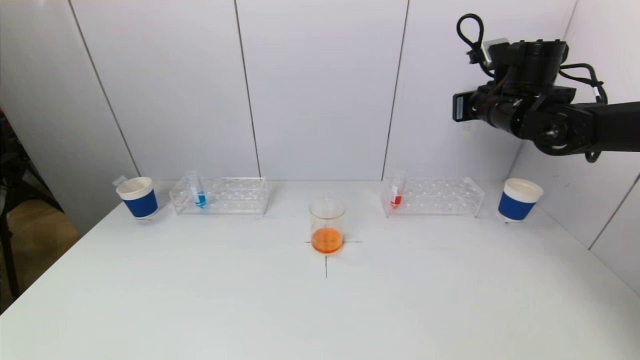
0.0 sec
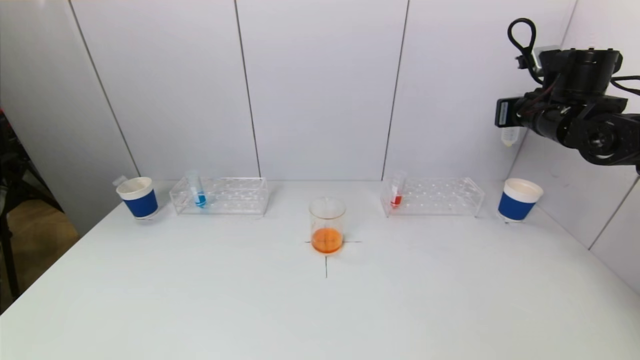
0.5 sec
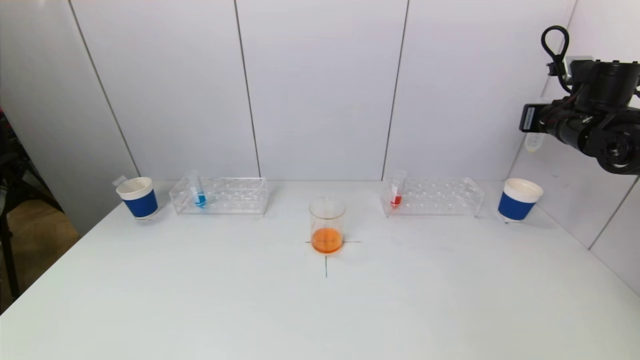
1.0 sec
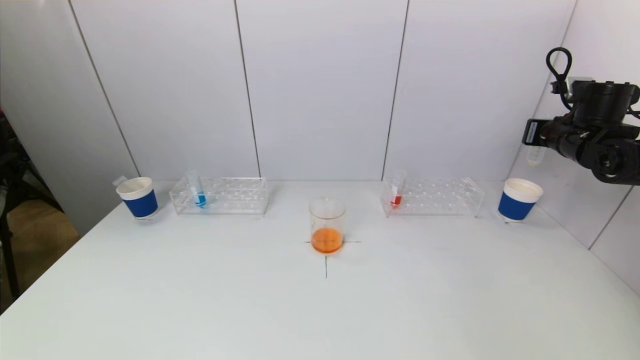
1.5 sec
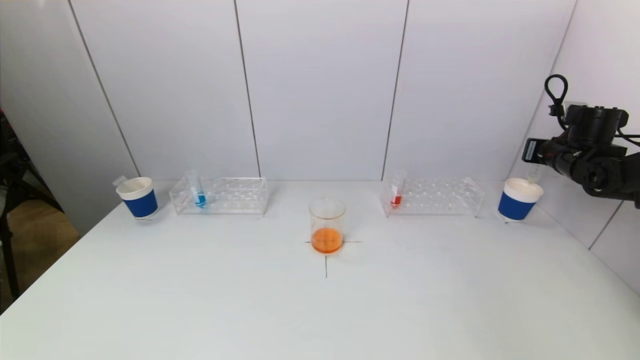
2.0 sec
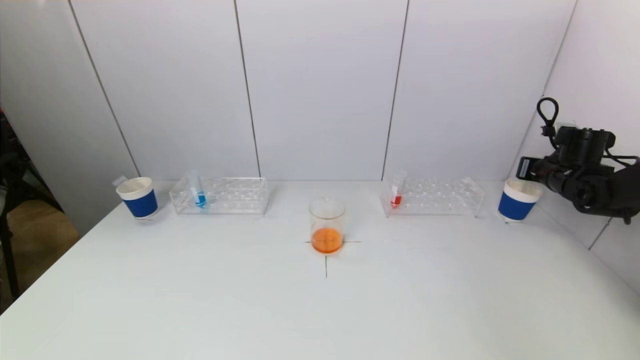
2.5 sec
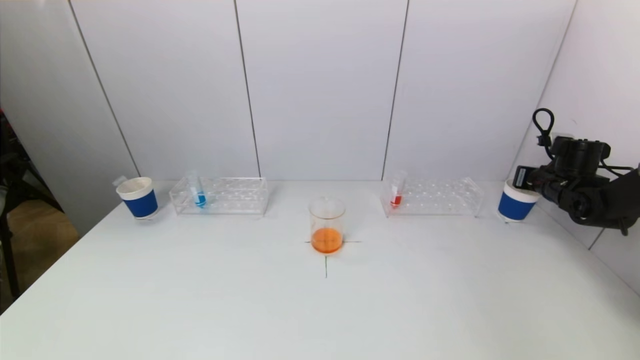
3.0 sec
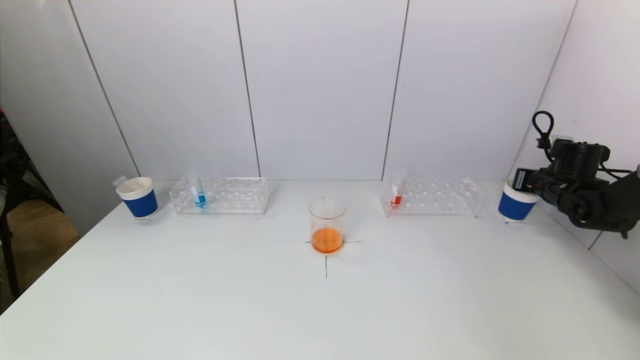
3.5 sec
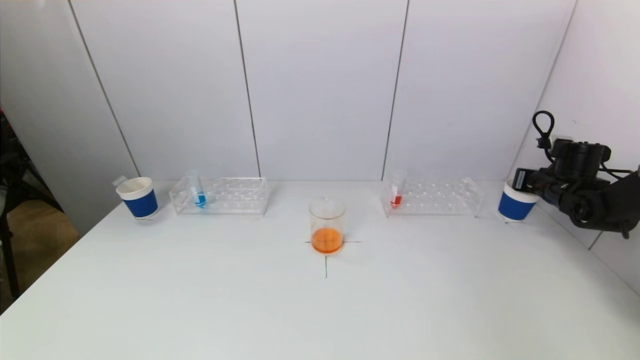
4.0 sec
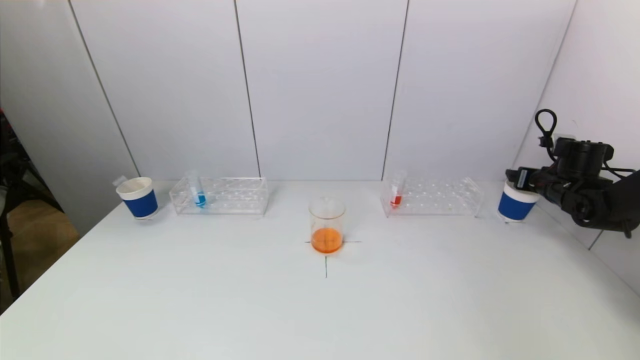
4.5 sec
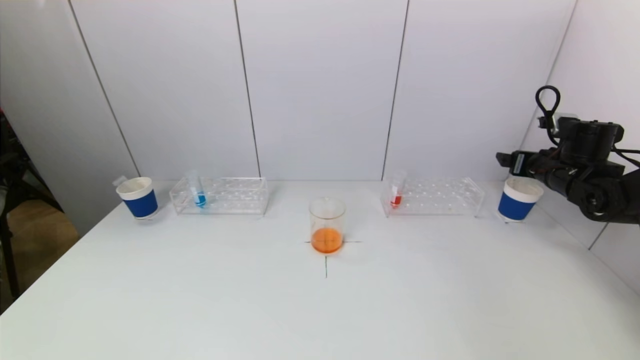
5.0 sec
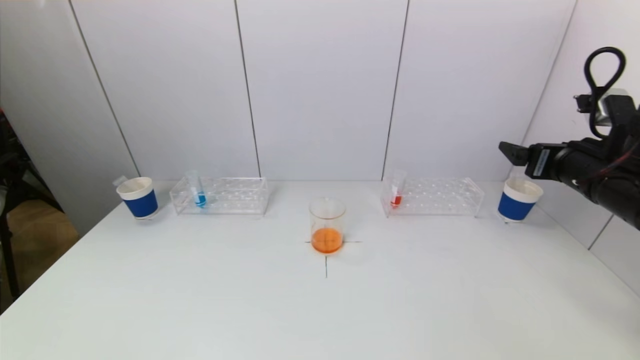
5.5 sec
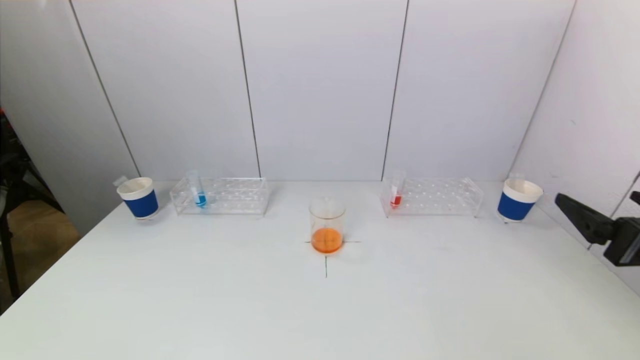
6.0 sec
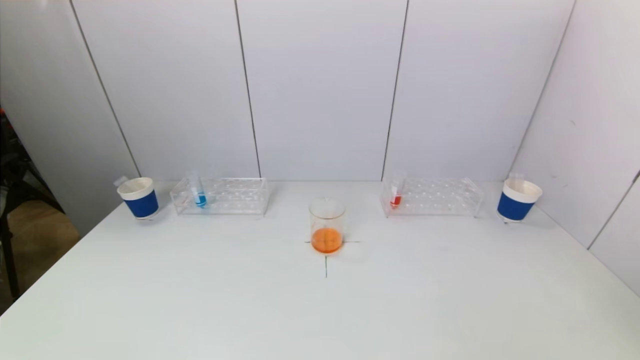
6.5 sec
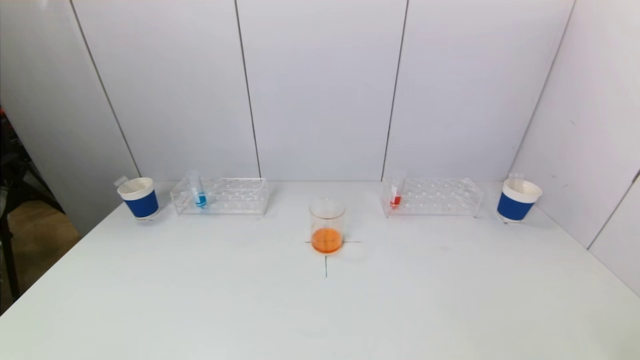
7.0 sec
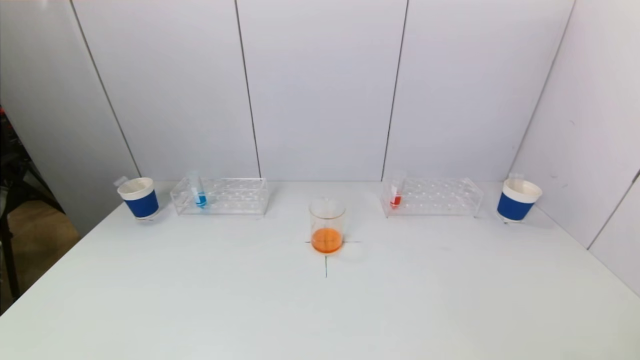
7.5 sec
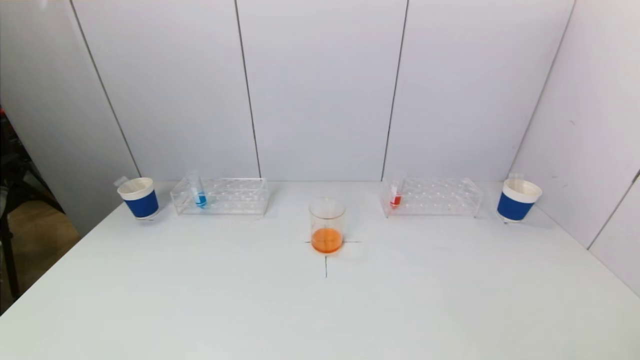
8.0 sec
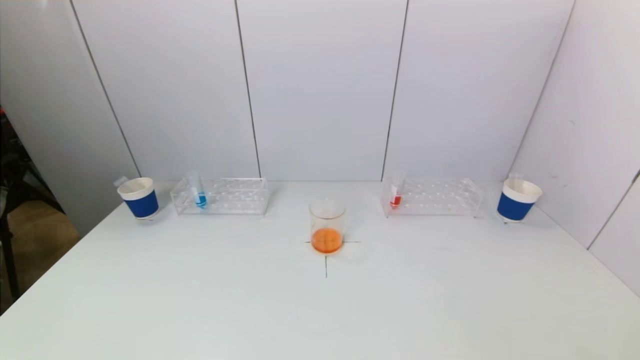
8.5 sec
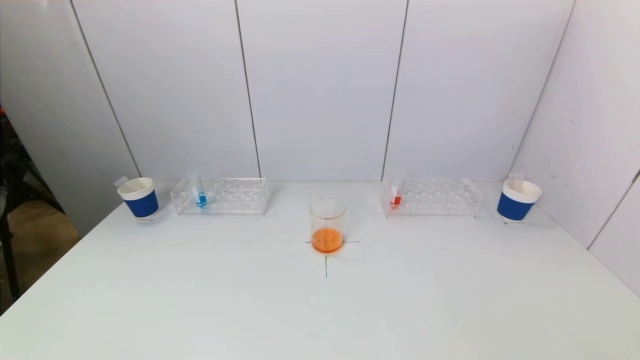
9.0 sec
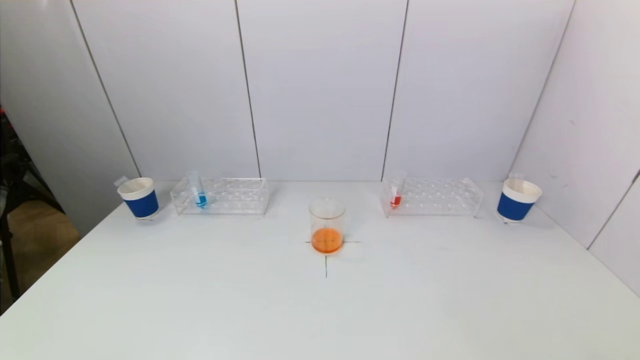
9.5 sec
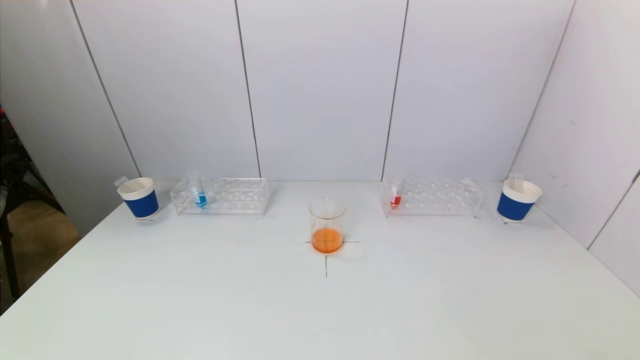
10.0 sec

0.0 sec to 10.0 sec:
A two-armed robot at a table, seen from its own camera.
Task of the whole recording: pick up a test tube with pigment on left test tube rack and a test tube with pigment on right test tube rack by grippers and pour them into the beaker.
Step, 0.0 sec to 4.0 sec: Place the test tube into the paper cup with the right gripper.
0.0 sec to 2.0 sec: The right gripper travels to the right and downward by roughly 20 cm.
2.0 sec to 4.0 sec: The right gripper heads downward, covering roughly 5 cm.
4.0 sec to 6.0 sec: The right gripper shifts some 30 cm backward, and opens up.
6.0 sec to 8.0 sec: The right gripper travels backward and downward by approximately 15 cm.
